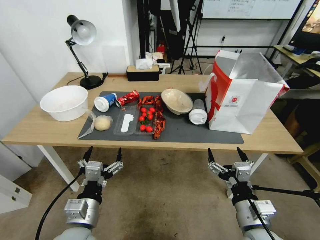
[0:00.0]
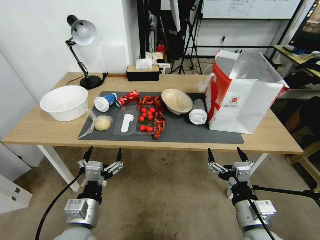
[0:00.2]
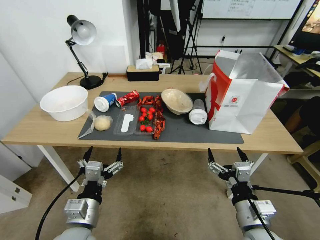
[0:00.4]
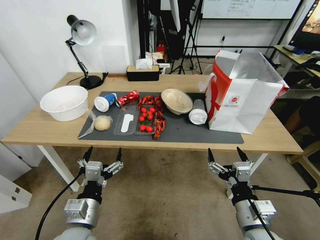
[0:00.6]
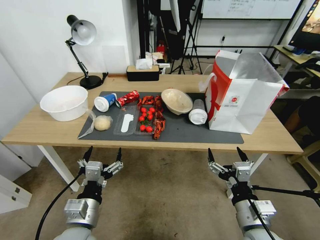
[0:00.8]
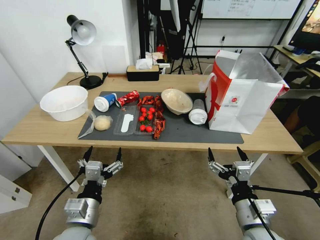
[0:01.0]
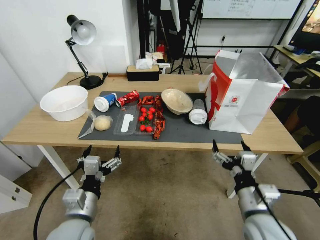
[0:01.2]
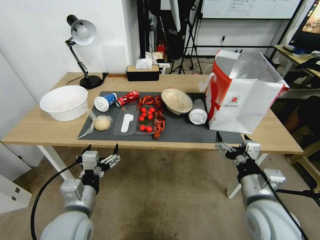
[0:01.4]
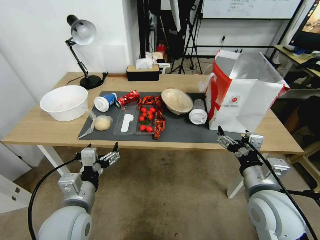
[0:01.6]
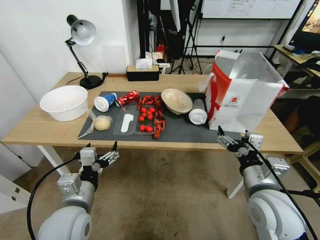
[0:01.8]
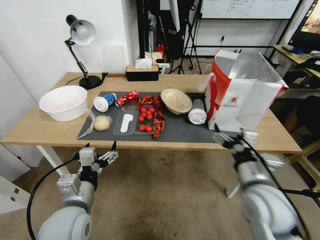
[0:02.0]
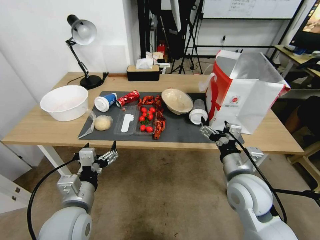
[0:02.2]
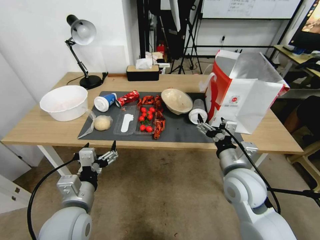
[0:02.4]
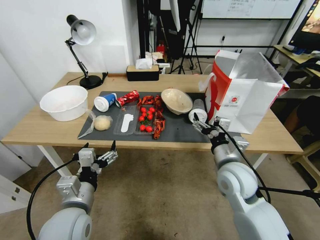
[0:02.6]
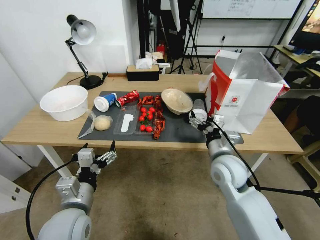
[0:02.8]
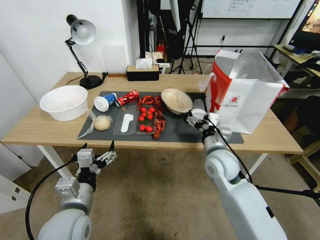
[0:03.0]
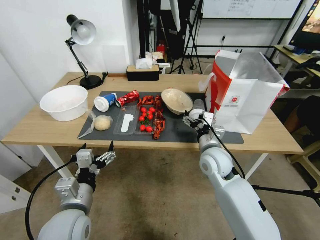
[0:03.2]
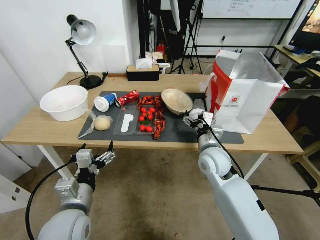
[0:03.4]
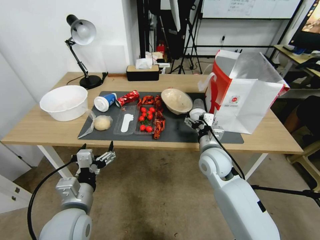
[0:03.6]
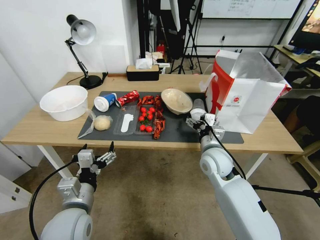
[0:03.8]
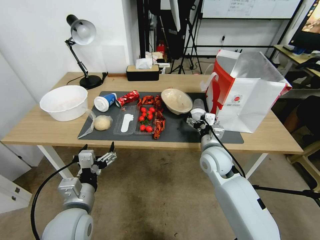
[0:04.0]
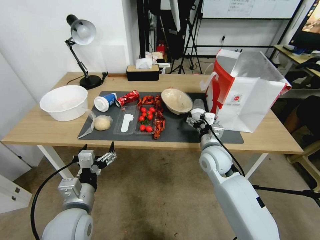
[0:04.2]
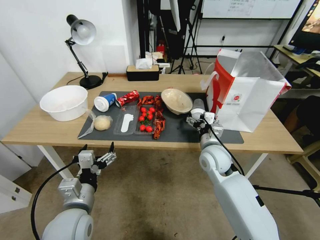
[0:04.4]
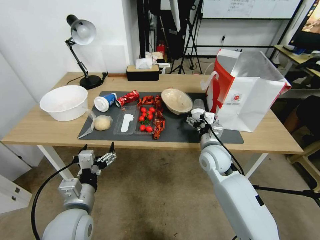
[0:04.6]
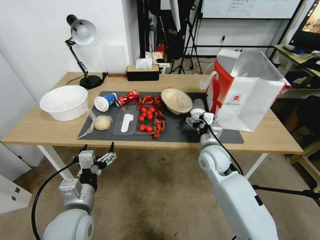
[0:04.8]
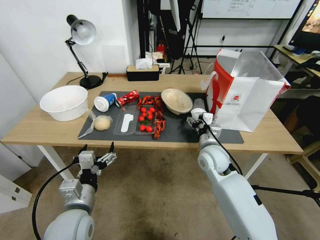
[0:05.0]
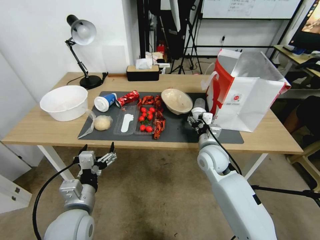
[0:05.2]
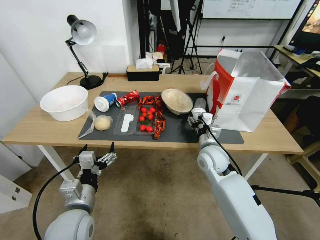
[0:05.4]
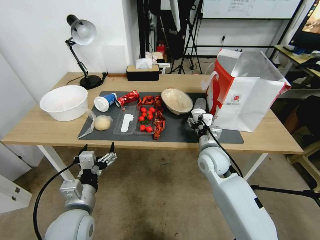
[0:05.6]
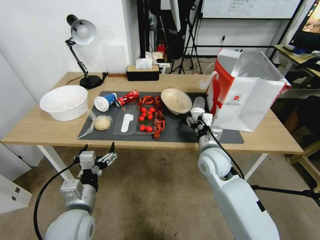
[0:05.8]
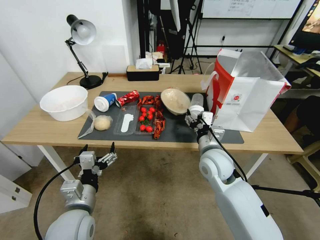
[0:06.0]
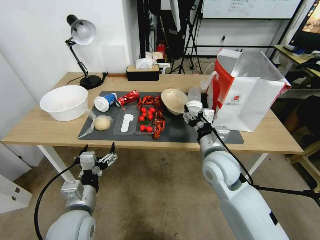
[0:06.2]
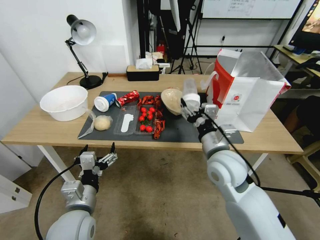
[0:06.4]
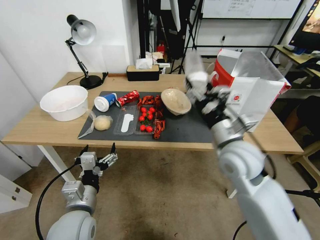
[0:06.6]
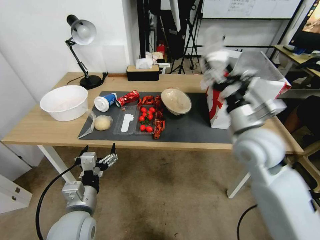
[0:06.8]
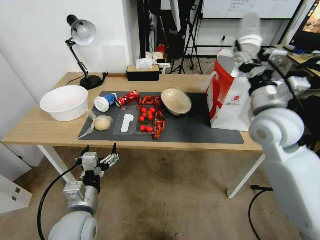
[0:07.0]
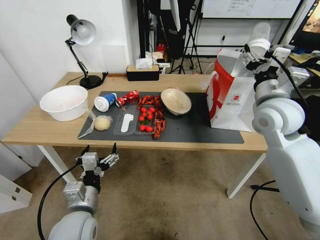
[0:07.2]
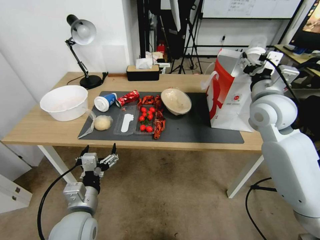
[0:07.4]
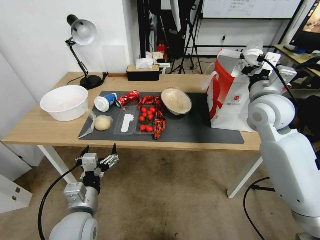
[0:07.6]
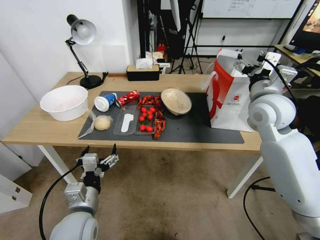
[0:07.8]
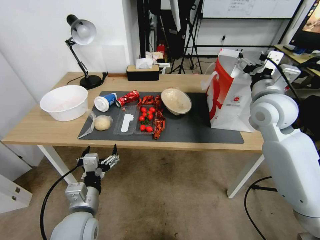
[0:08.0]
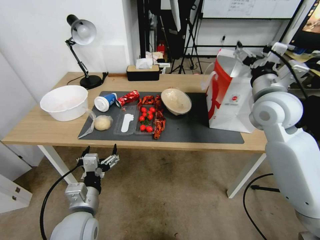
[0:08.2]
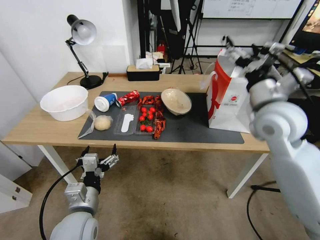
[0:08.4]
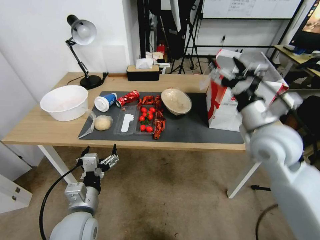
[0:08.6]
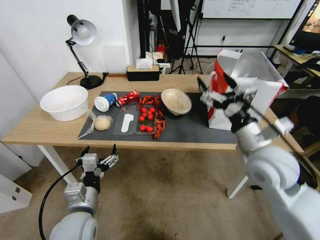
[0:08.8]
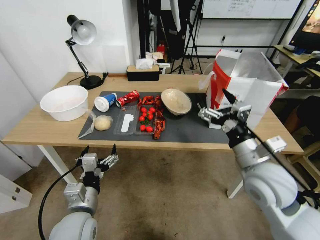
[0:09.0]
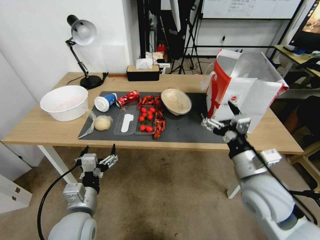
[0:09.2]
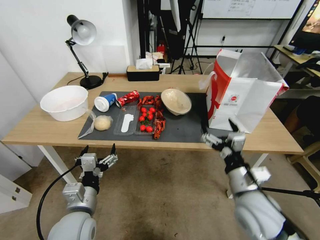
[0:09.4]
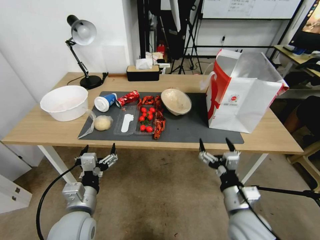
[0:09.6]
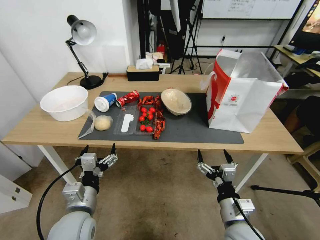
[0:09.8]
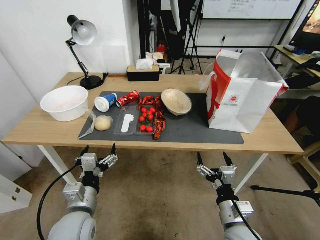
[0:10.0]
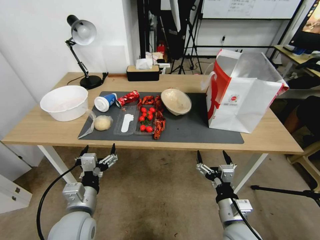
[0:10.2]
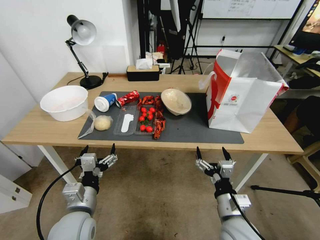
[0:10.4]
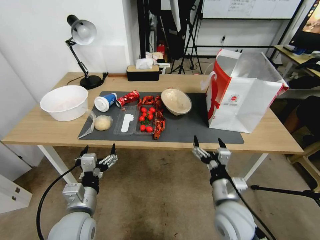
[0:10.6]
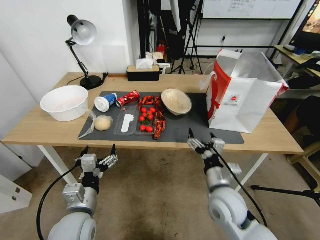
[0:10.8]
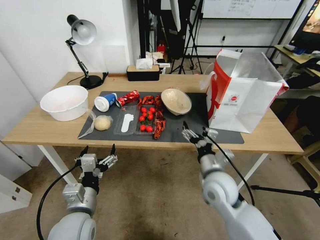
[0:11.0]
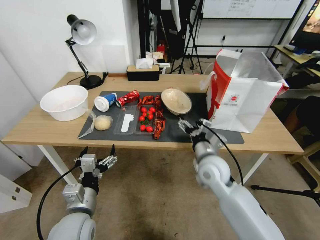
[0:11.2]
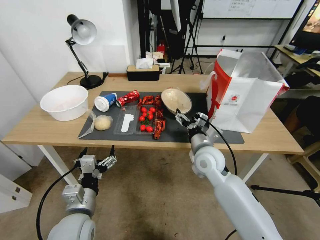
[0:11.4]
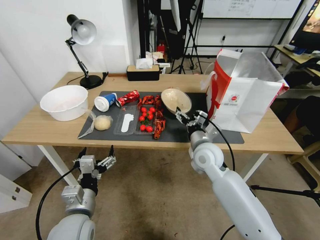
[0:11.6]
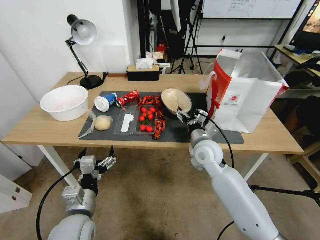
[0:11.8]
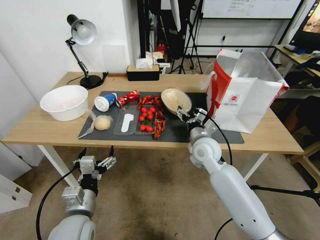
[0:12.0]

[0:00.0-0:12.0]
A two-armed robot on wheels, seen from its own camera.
0:01.6 to 0:03.0: The right gripper goes roughly 15 cm forward and to the left.
0:03.0 to 0:06.0: There are only small adjustments of the grippers.
0:06.0 to 0:07.6: The right gripper shifts some 20 cm upward and to the right.
0:07.6 to 0:09.0: The right gripper heads backward and downward, covering some 20 cm.
0:09.0 to 0:10.4: The right gripper moves downward and backward, approximately 15 cm.
0:10.4 to 0:12.0: The right gripper heads forward, covering about 20 cm.

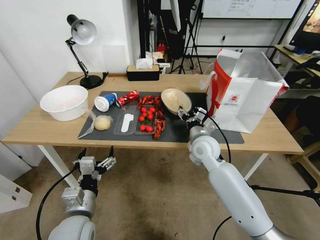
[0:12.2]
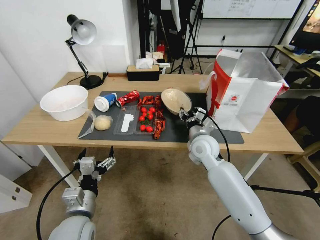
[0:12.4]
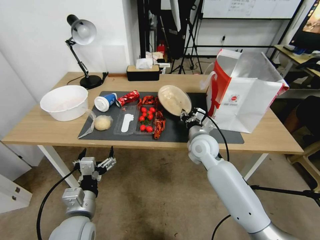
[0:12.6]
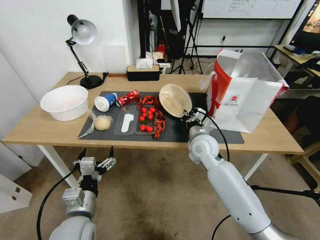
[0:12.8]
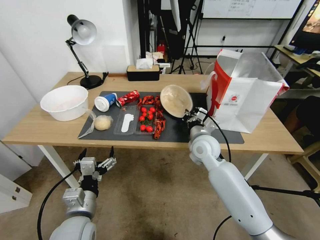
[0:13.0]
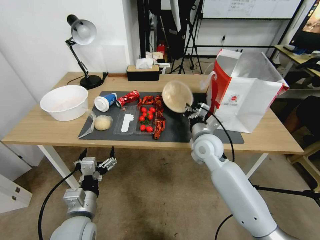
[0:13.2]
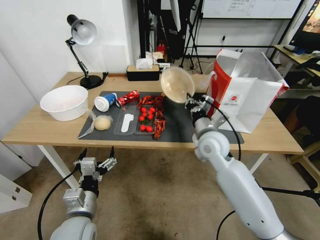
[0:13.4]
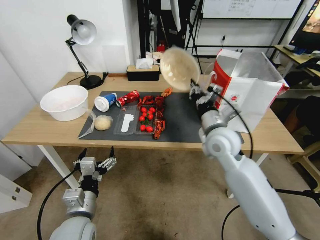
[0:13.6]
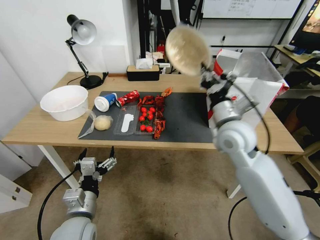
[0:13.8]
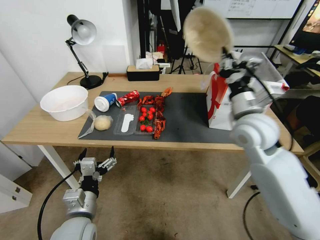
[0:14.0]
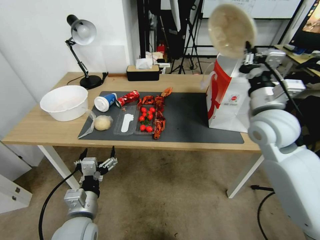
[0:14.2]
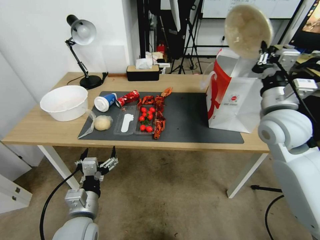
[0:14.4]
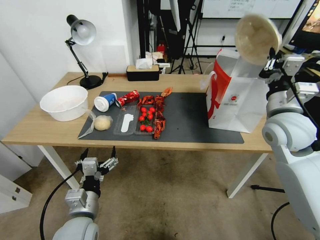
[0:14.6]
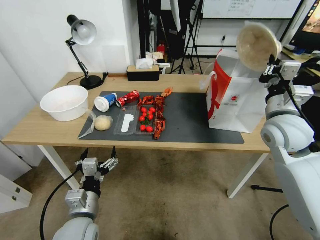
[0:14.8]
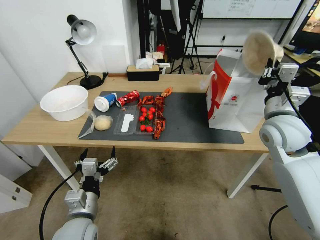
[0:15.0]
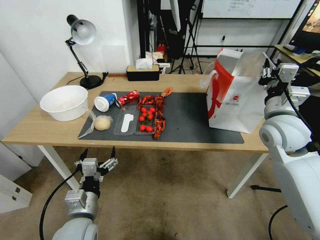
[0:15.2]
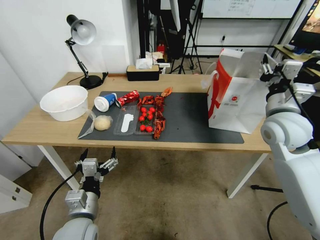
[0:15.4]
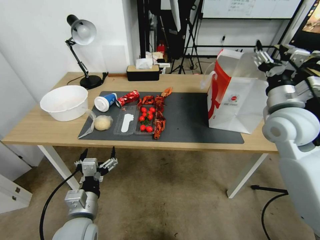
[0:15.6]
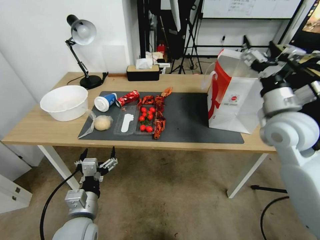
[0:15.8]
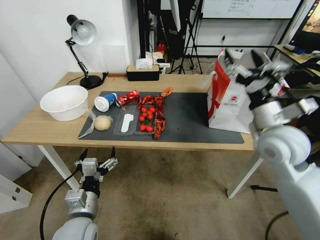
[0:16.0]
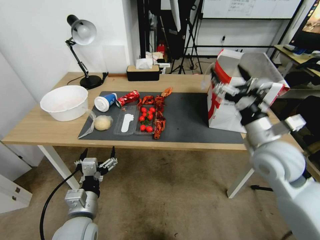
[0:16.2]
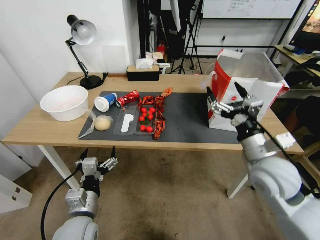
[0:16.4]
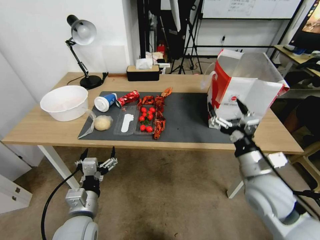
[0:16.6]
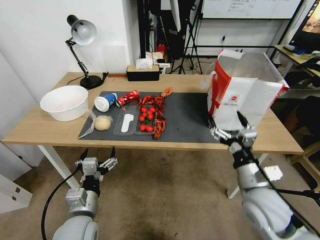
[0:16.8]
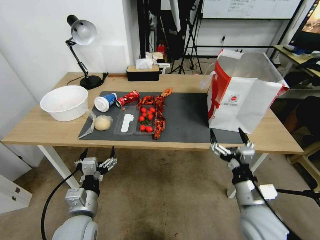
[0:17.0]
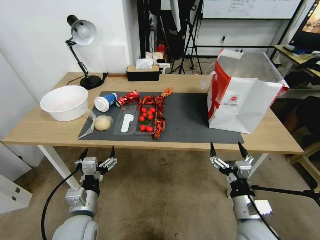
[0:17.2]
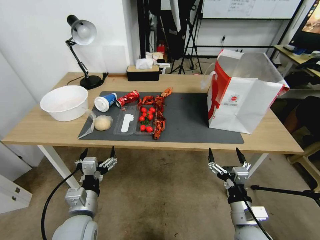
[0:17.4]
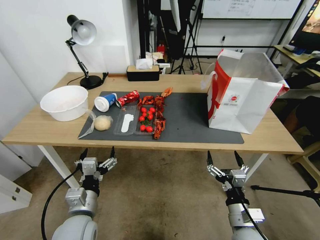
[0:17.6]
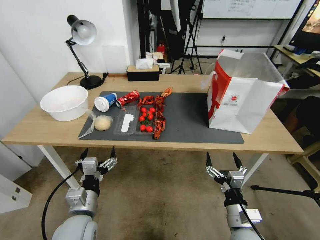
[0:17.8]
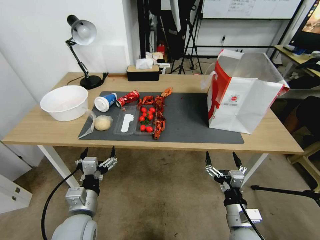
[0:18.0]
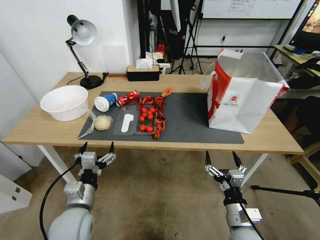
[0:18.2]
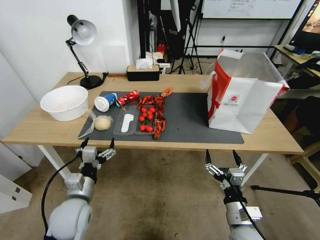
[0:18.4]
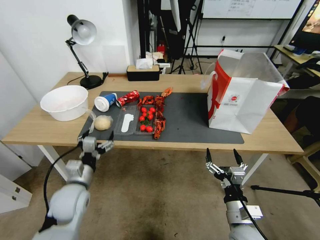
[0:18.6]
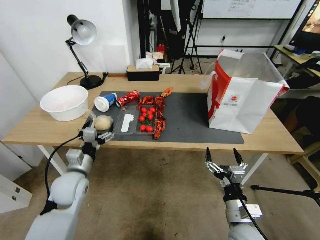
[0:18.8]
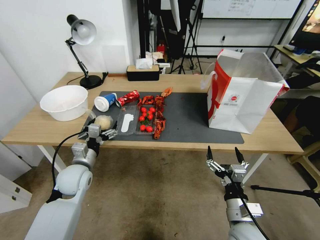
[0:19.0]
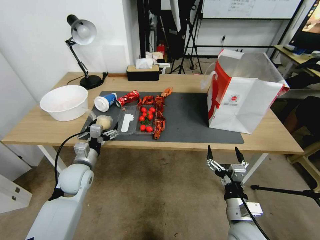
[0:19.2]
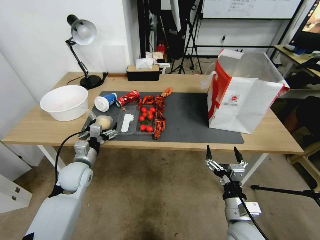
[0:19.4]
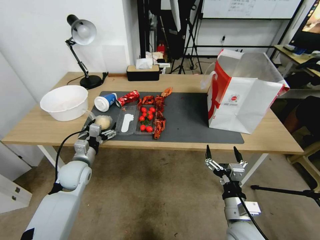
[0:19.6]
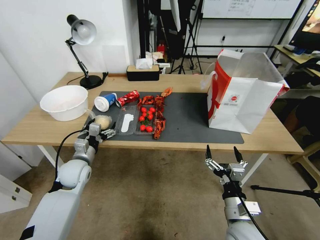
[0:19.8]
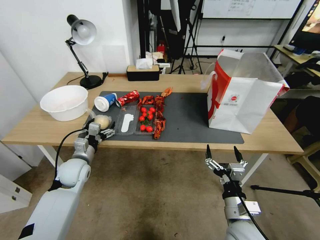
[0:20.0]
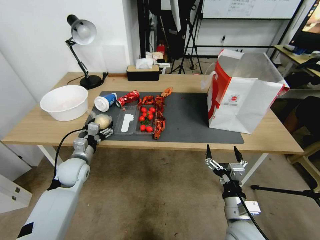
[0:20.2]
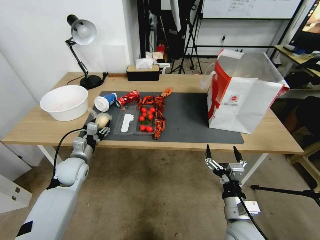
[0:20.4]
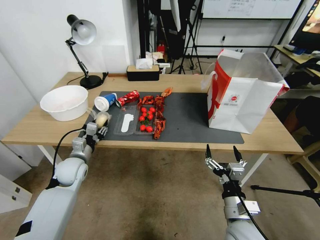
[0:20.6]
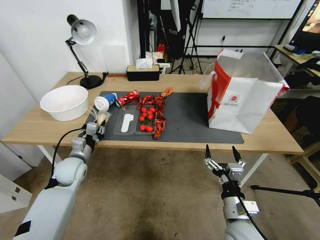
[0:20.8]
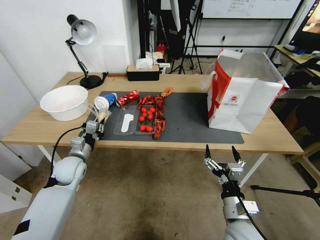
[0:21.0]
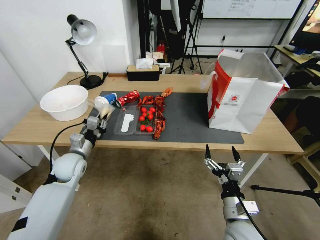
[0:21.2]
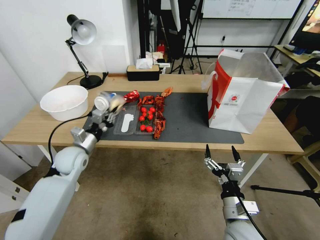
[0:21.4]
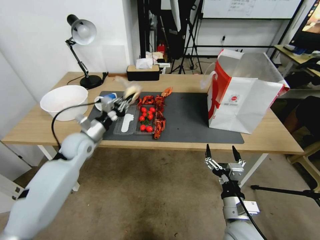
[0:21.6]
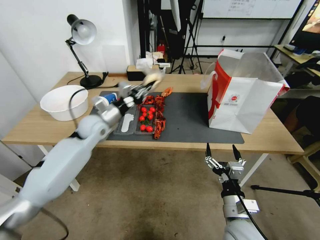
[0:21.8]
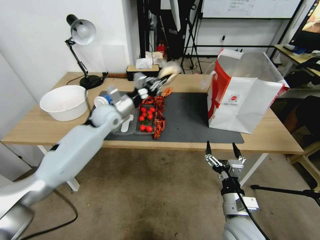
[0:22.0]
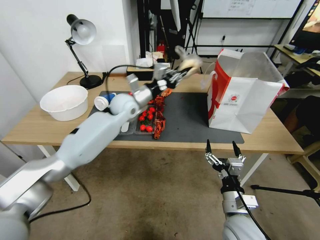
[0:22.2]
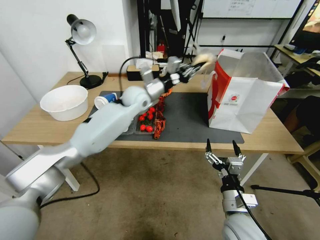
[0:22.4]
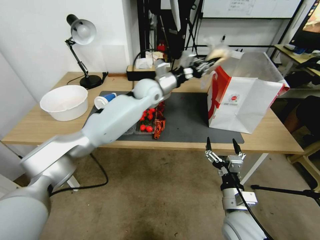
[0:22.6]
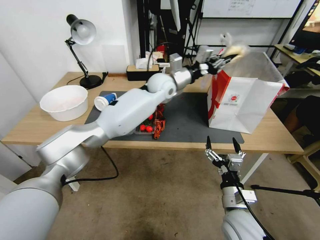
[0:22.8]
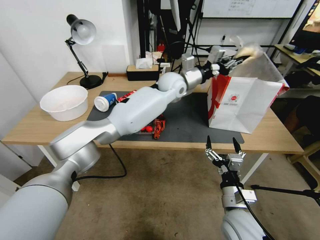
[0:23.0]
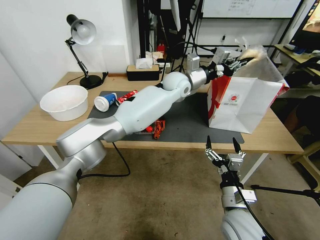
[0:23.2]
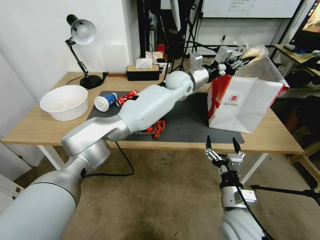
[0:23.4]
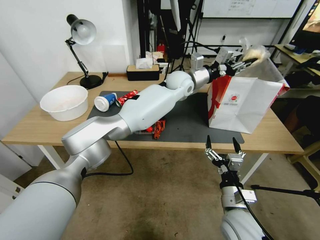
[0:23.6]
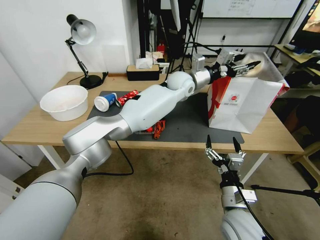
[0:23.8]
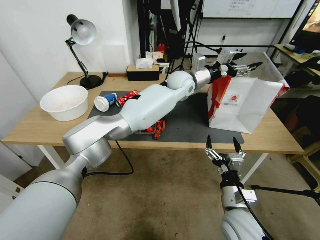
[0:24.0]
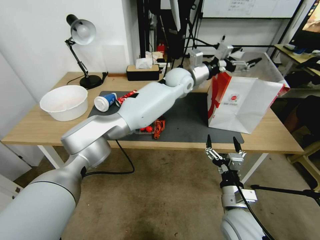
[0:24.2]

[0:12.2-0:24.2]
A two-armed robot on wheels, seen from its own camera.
0:12.2 to 0:13.8: The right gripper is displaced upward by about 10 cm, and closes up.
0:13.8 to 0:15.2: The right gripper shifts approximately 10 cm to the right.
0:15.2 to 0:16.6: The right gripper goes approximately 15 cm backward, downward and to the left, and opens.
0:16.6 to 0:18.2: The right gripper travels downward and backward by about 15 cm.
0:18.2 to 0:19.8: The left gripper travels forward and to the left by some 20 cm.
0:19.8 to 0:21.2: The left gripper closes.
0:21.2 to 0:22.6: The left gripper is displaced to the right, forward and upward by approximately 40 cm.
0:22.6 to 0:24.2: The left gripper shifts about 10 cm to the right, and opens.
